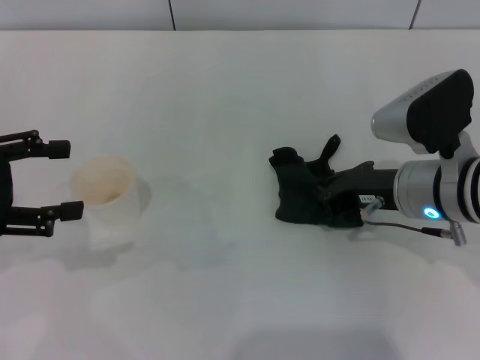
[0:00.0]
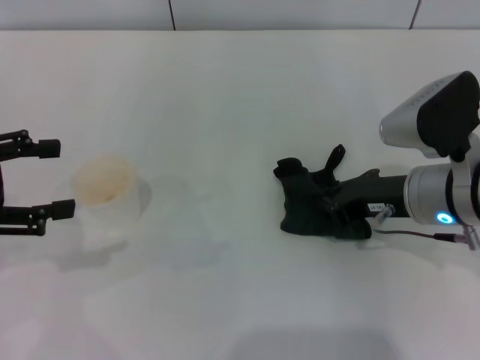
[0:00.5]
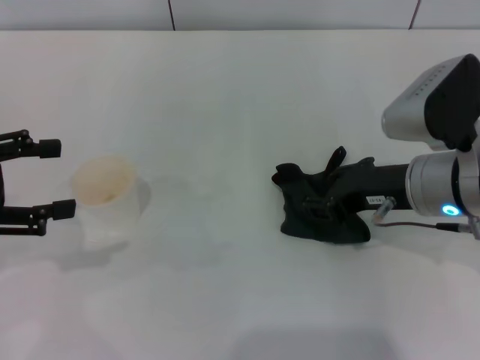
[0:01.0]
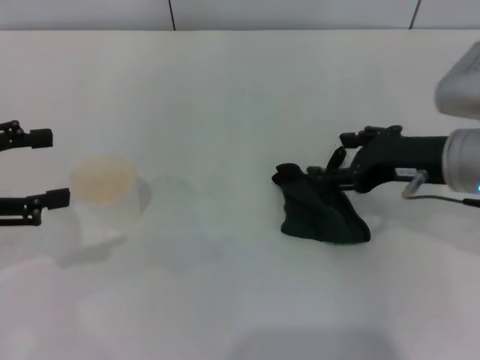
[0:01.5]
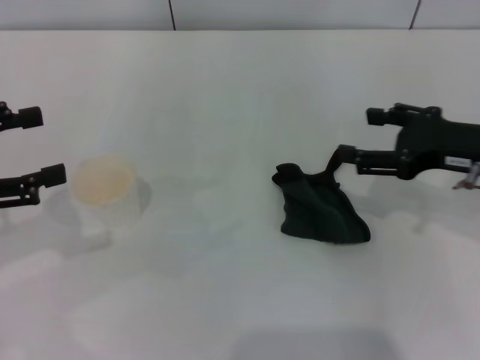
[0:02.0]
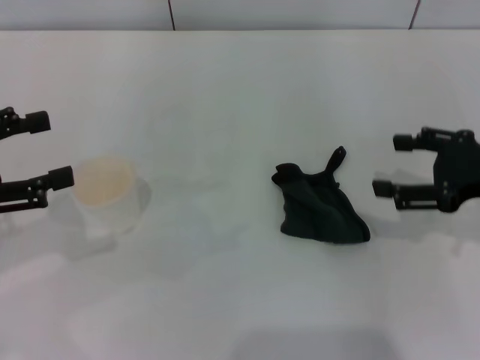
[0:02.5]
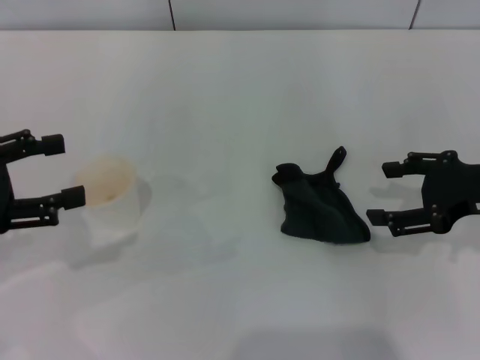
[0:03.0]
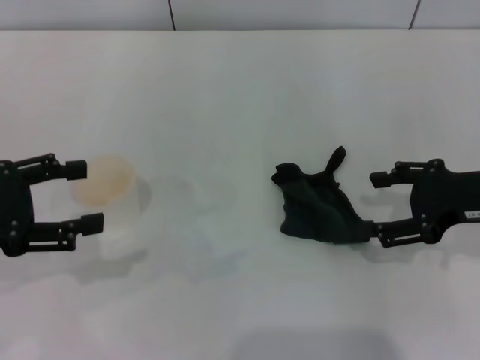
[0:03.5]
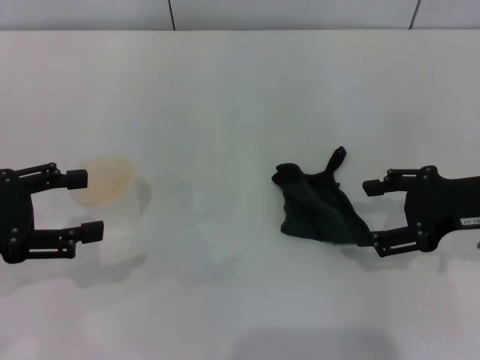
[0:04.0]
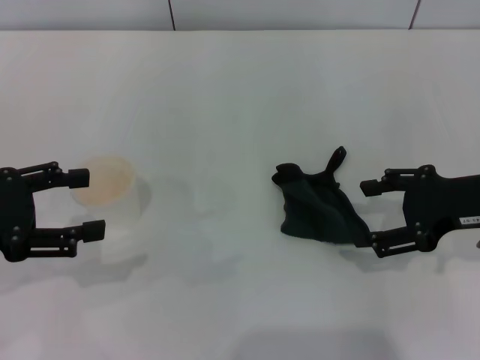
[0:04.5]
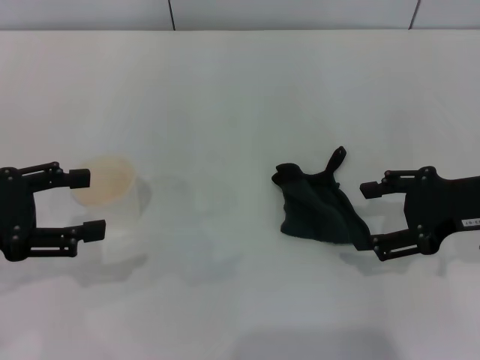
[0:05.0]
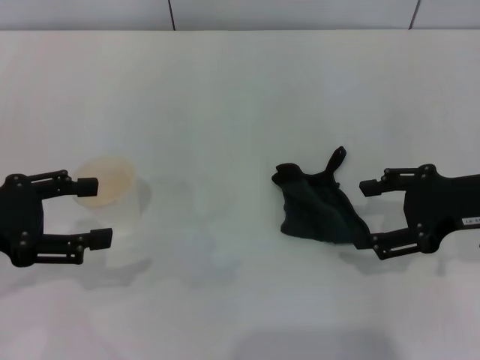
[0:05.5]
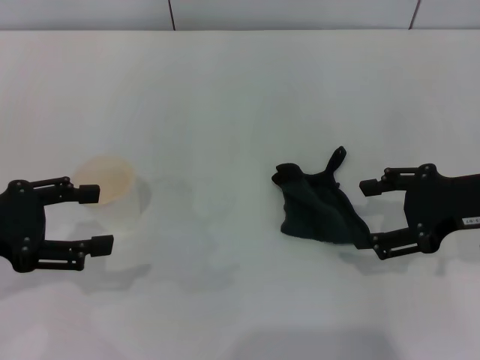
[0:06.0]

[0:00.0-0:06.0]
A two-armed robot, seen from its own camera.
Step, 0:00.0 to 0:02.5: Place the rag on the table with the right gripper.
0:00.0 to 0:02.0: The right gripper travels to the right by roughly 10 cm, and opens its fingers.
0:02.0 to 0:04.0: The grippers make only small movements.
0:04.0 to 0:06.0: Both grippers stay about where they are.

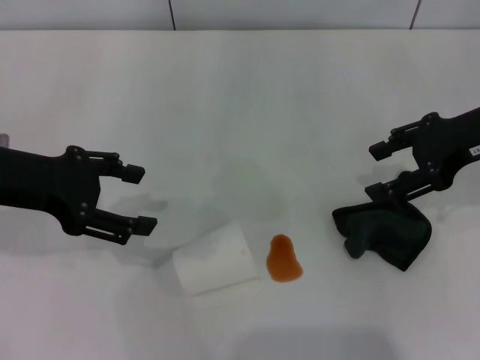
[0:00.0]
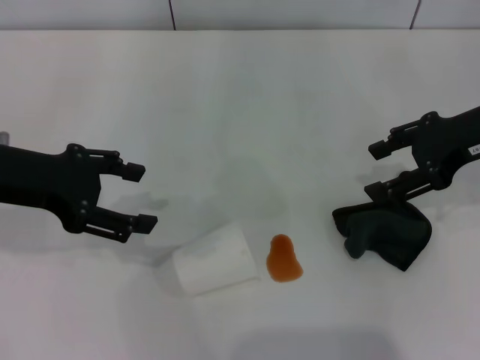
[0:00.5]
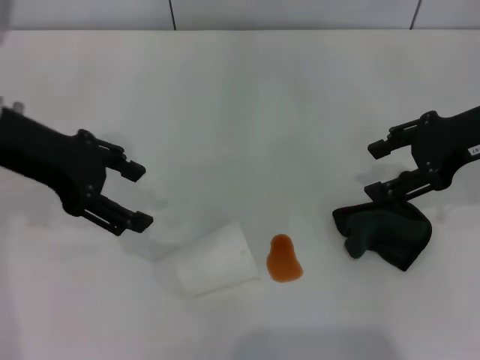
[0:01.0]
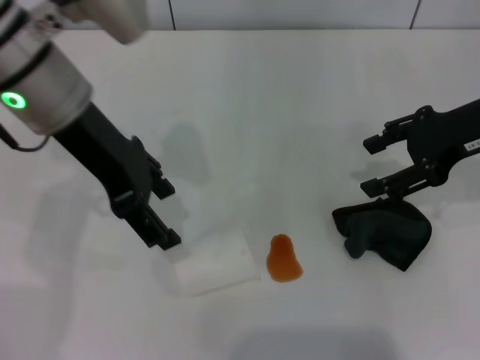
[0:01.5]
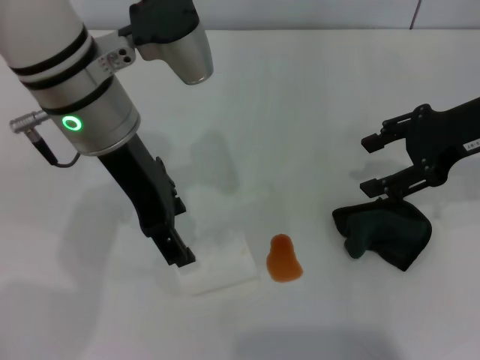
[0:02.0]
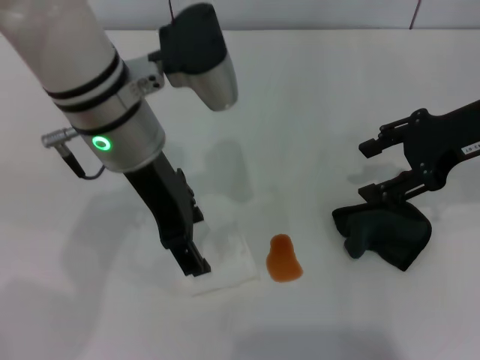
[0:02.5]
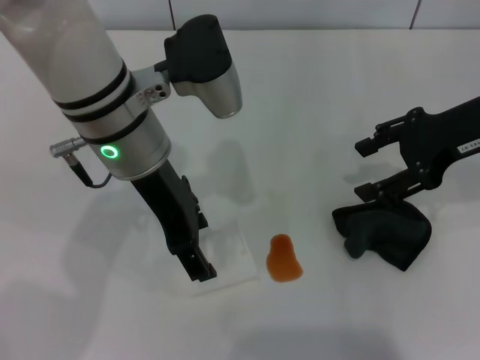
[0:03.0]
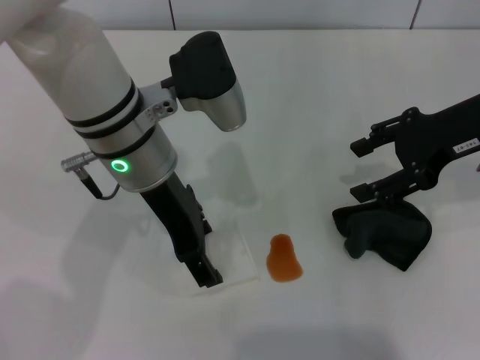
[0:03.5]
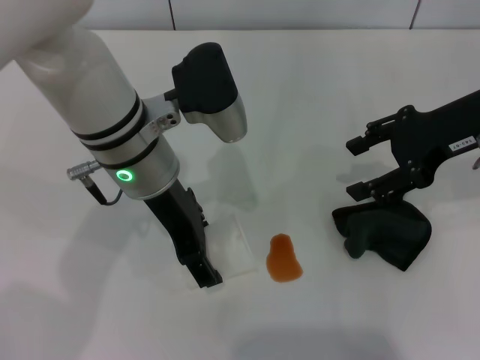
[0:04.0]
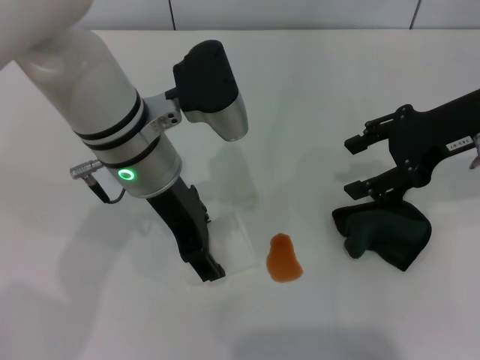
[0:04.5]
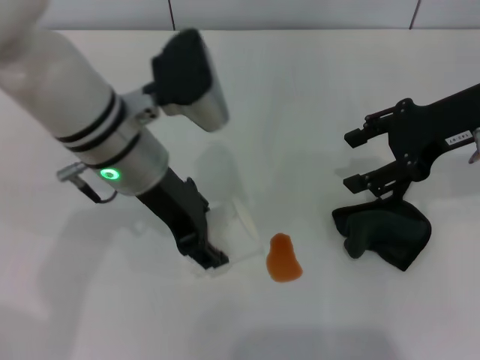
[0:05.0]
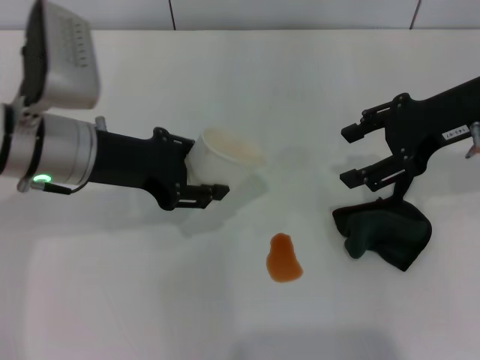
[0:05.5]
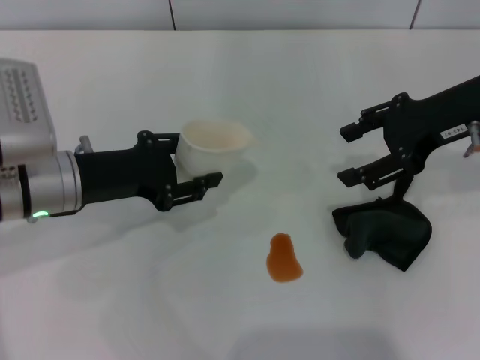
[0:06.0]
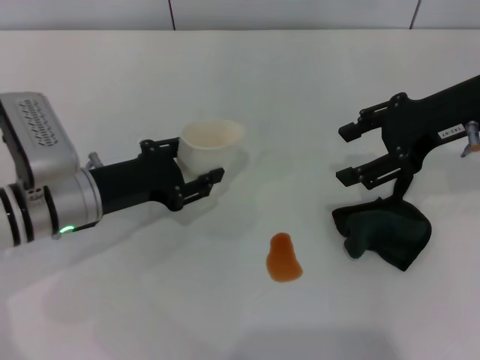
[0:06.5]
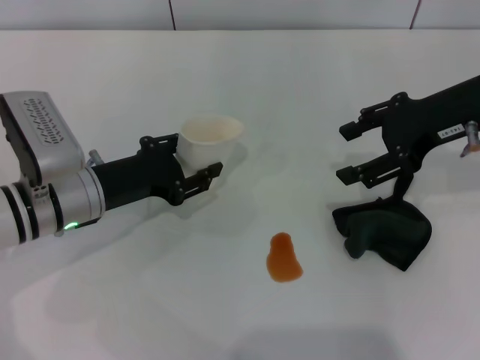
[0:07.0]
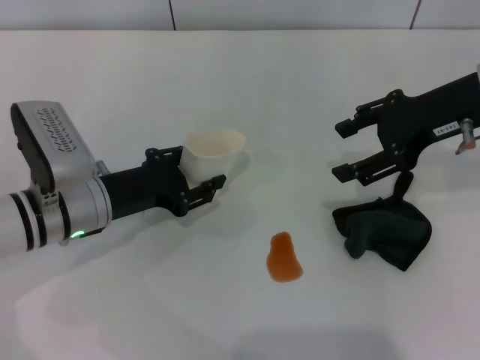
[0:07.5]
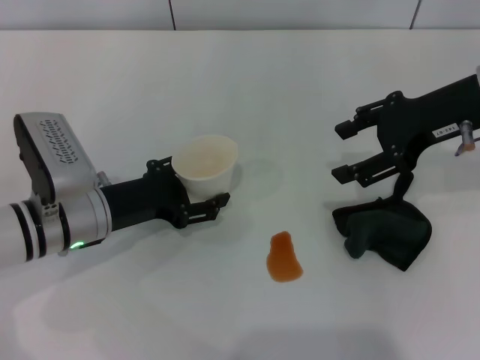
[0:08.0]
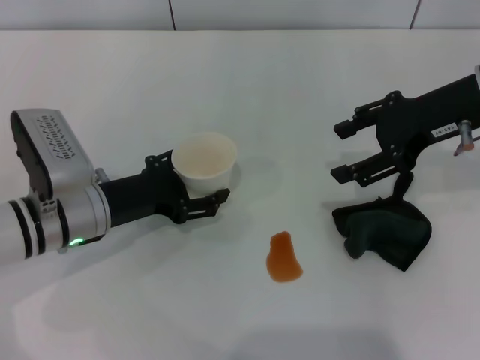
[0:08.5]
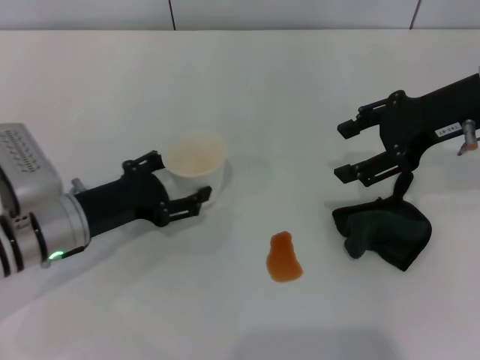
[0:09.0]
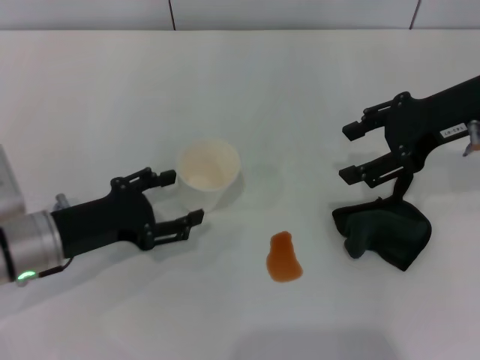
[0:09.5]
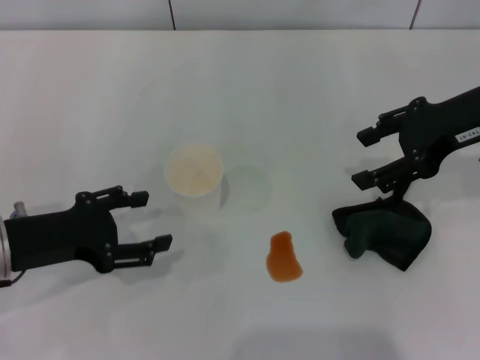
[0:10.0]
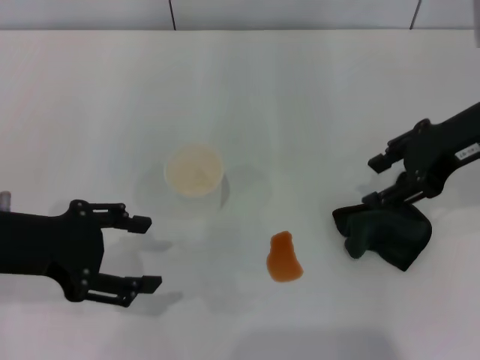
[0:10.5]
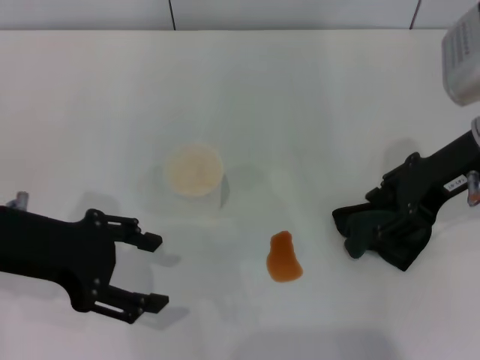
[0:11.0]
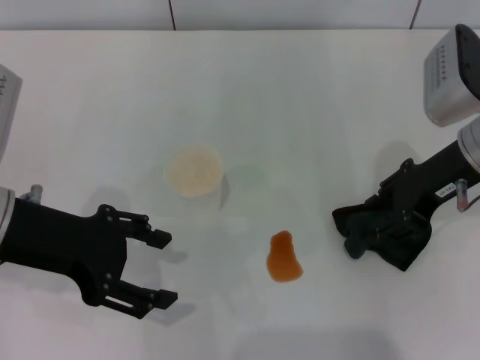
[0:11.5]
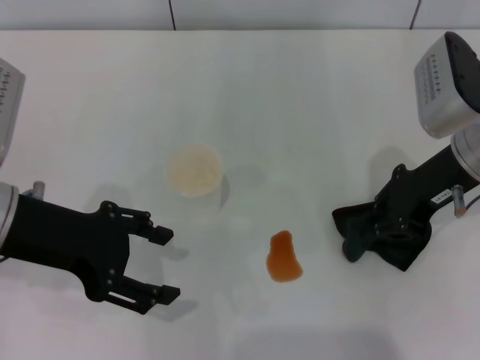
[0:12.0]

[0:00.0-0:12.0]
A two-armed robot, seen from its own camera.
Step, 0:00.0 to 0:04.5: Grasp the paper cup with the left gripper.
Step, 0:05.0 to 0:09.5: Stand the paper cup upright with the left gripper.
0:00.0 to 0:02.0: The left gripper moves to the right, roughly 15 cm.
0:02.0 to 0:04.0: The left gripper goes about 5 cm downward.
0:04.0 to 0:06.0: The left gripper moves to the left and downward, roughly 15 cm, and closes its fingers.
0:06.0 to 0:08.0: The left gripper heads downward, covering approximately 5 cm.
0:08.0 to 0:10.0: The left gripper travels to the left by about 5 cm, and opens.
0:10.0 to 0:12.0: The left gripper is displaced upward by some 10 cm. The right gripper moves some 5 cm, and closes.

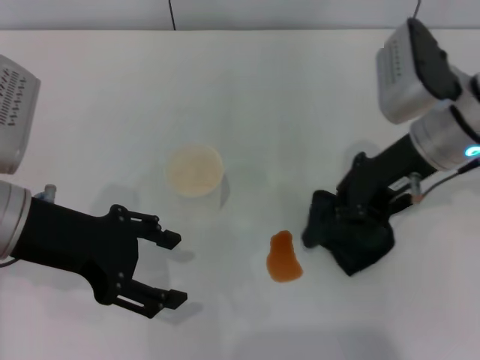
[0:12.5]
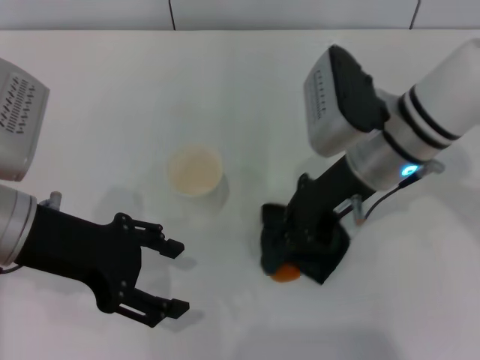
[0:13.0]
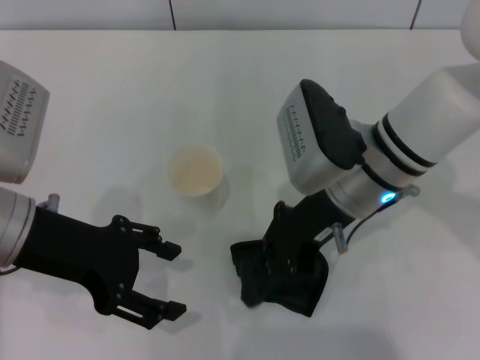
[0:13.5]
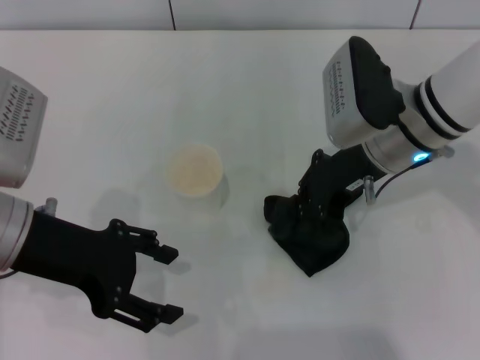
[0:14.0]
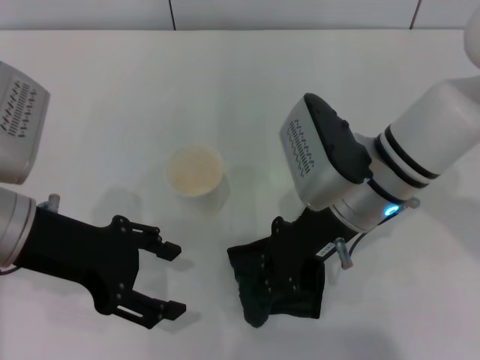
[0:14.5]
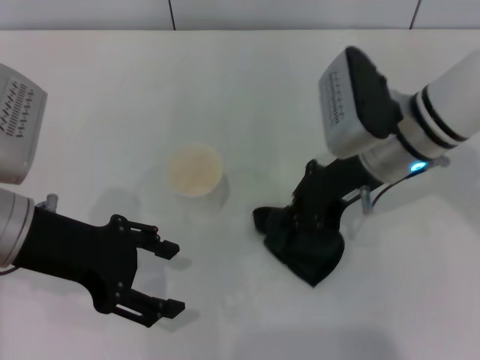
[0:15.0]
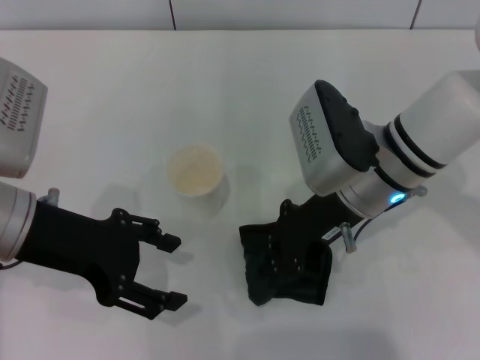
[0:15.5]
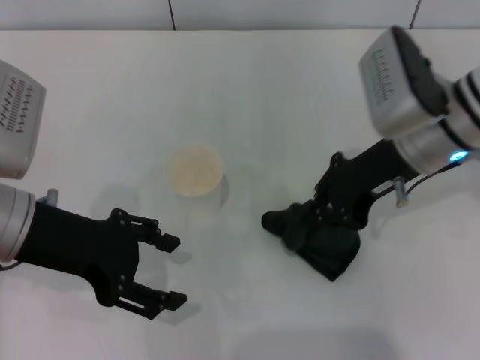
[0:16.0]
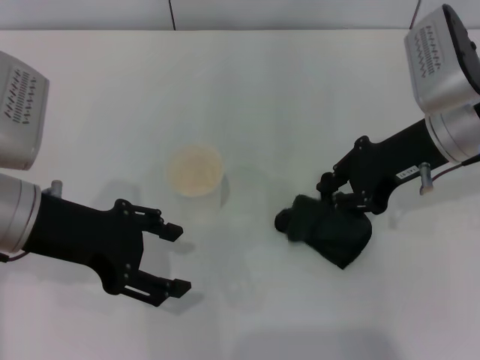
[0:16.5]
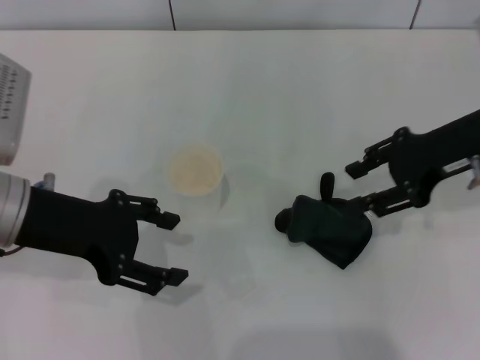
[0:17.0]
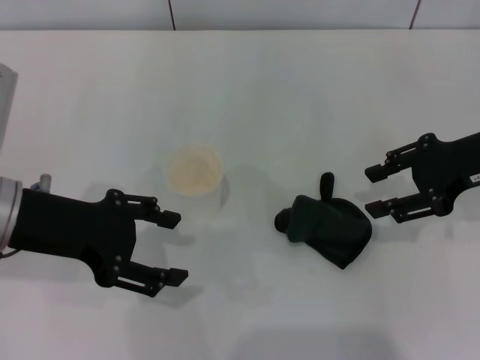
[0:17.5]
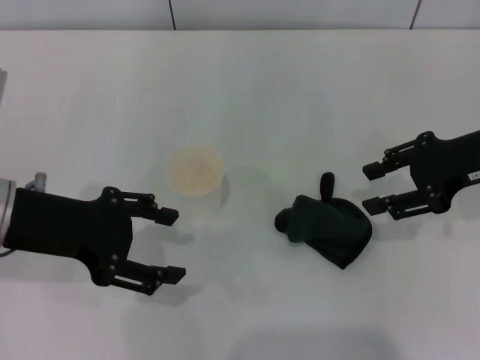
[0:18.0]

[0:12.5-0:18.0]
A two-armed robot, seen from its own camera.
Step, 0:12.5 to 0:16.0: Wipe the stains off the table with the right gripper.
Step, 0:16.5 to 0:17.0: Place the rag on the table with the right gripper.
0:12.5 to 0:14.5: The right gripper goes left and right, approximately 10 cm each way, reversing 2 times.
0:14.5 to 0:16.0: The right gripper is displaced to the right by roughly 5 cm.
0:16.0 to 0:18.0: The right gripper heads to the right, covering approximately 10 cm, and opens.
